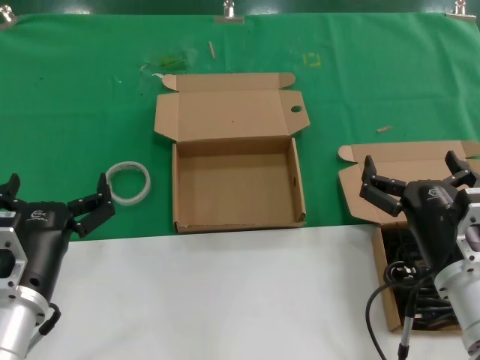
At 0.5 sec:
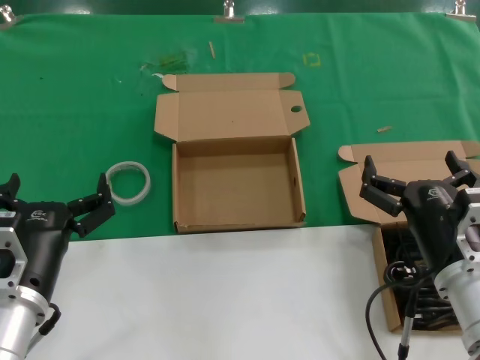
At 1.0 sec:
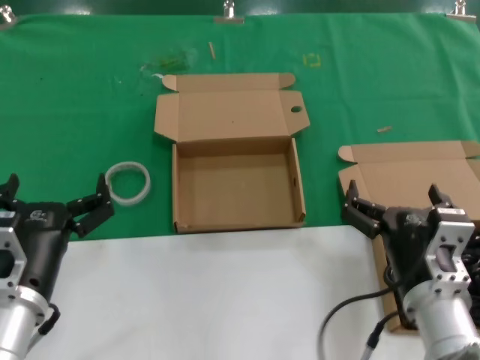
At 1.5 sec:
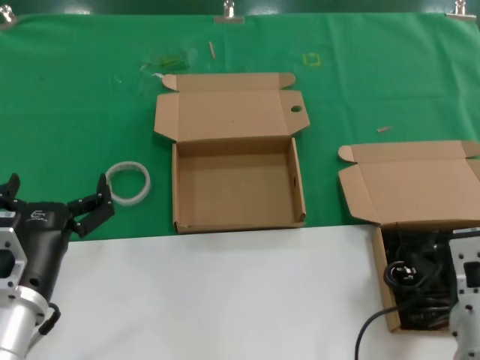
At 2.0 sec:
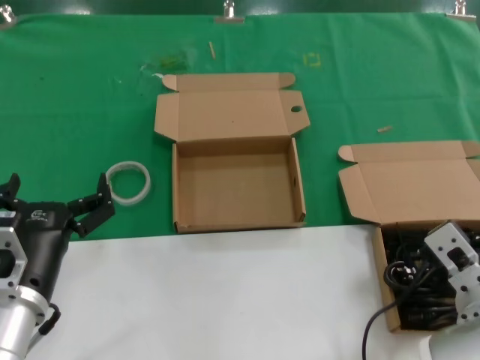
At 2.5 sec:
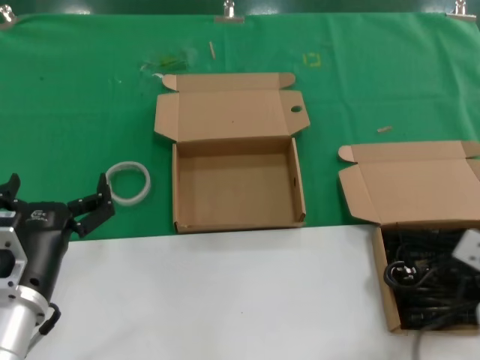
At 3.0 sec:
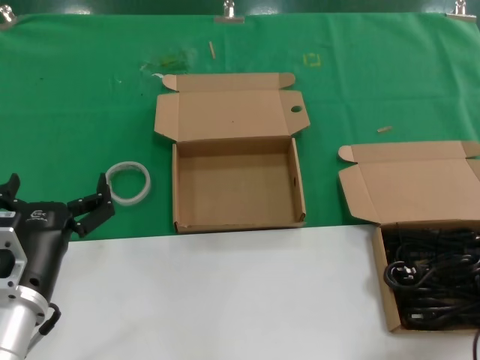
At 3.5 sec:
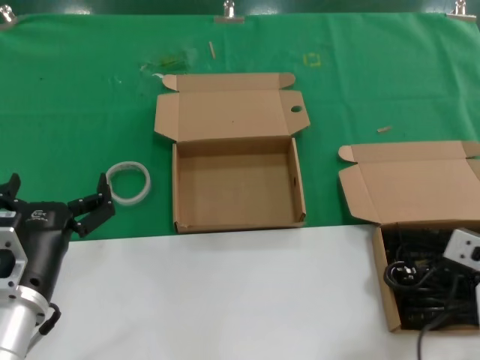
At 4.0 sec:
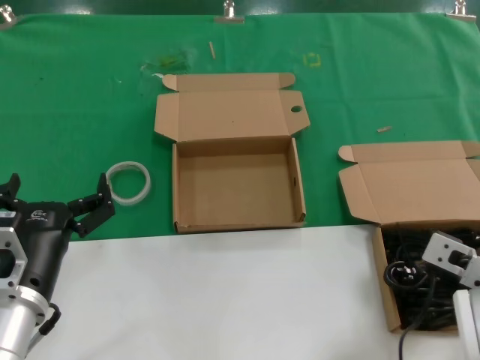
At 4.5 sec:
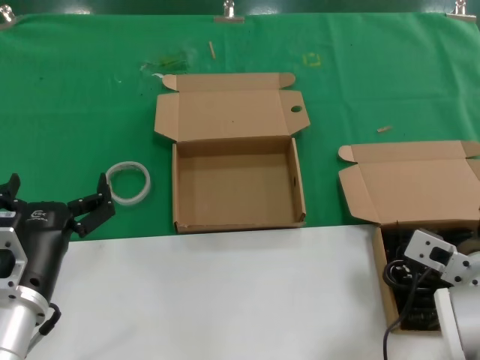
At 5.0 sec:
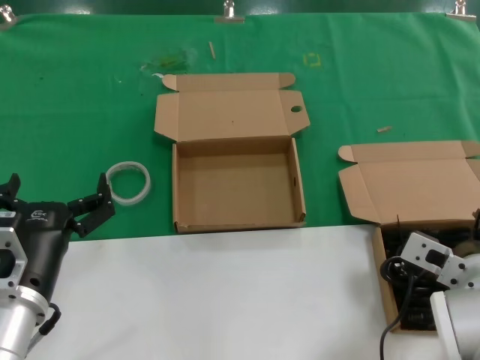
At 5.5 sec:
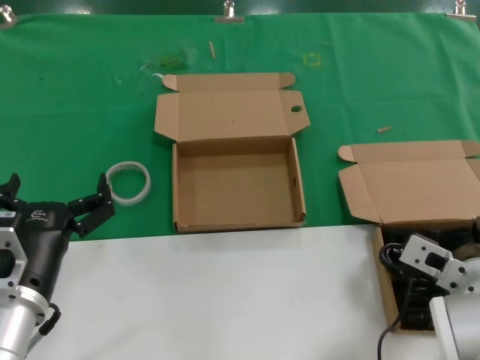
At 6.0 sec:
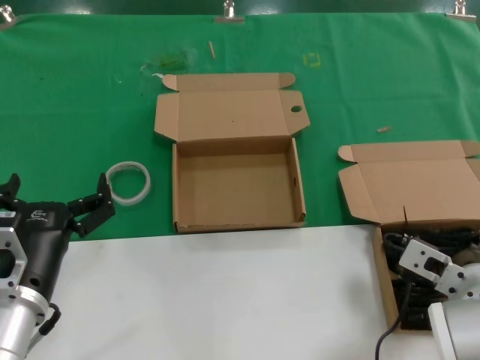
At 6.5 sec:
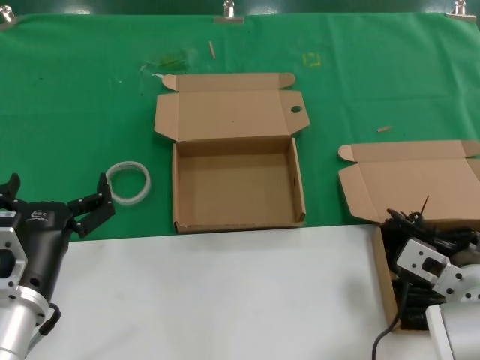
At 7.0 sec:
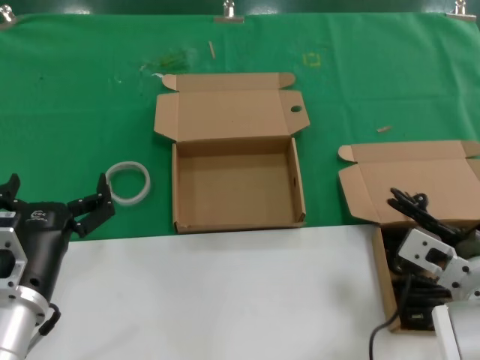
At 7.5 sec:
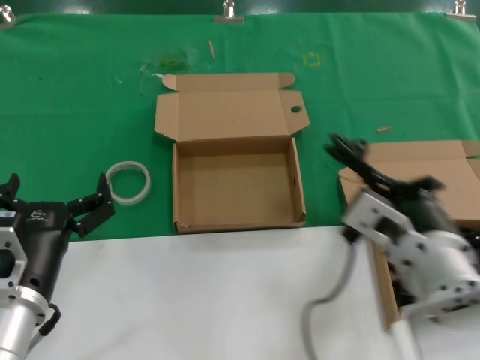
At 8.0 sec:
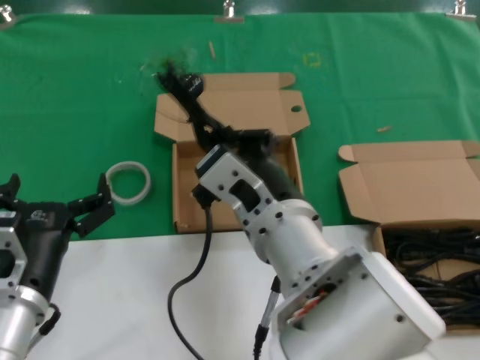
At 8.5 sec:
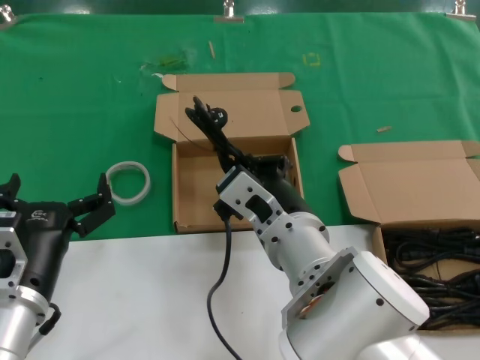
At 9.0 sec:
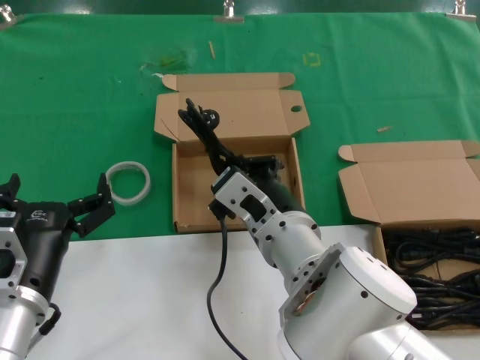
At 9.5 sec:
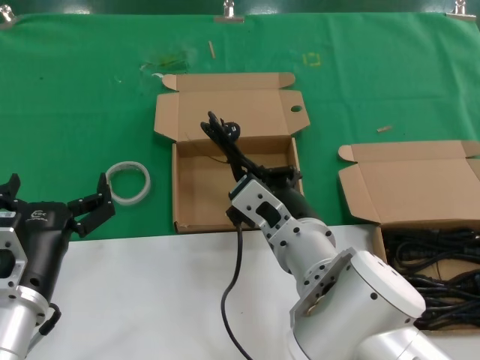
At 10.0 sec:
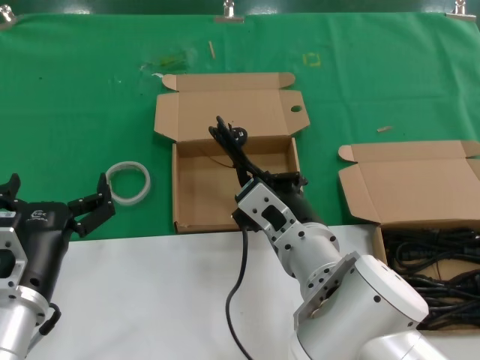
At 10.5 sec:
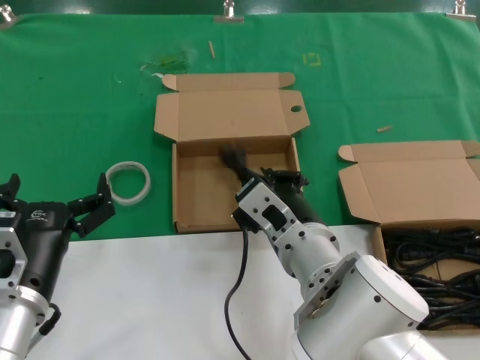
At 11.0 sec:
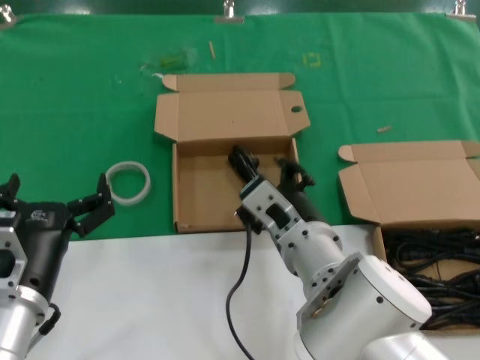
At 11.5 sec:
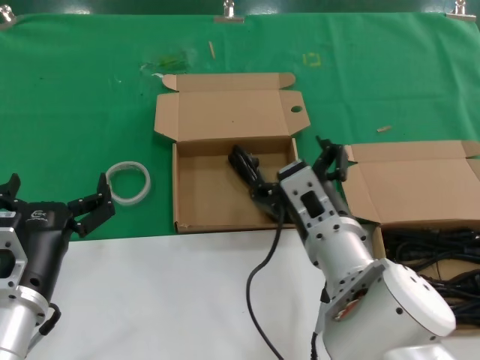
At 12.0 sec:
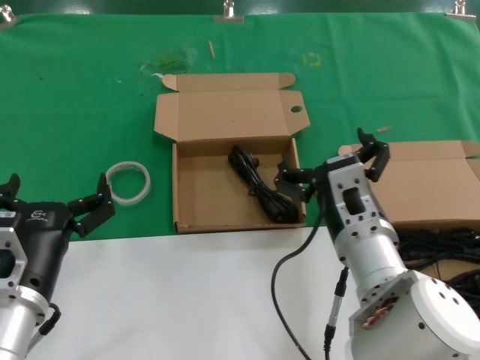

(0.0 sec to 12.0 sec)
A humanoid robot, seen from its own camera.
Task of the whole recording: take the parts from the box containing them and put them into an empty box.
Step, 0.0 sec - 6.0 sec: Grasp the data cable.
Step, 6.5 sec - 11.0 sec: Place the data cable in the another box.
2.0 sec - 4.0 sec: The right hand travels to the right and back again, about 10 cm each way.
4.0 sec - 6.0 sec: The hands move only a little.
6.0 sec - 8.0 sec: The right hand moves to the left and upward, roughly 25 cm.
8.0 sec - 10.0 sec: The right hand travels downward by about 10 cm.
10.0 sec - 12.0 sec: The right hand shifts approximately 5 cm to the right.

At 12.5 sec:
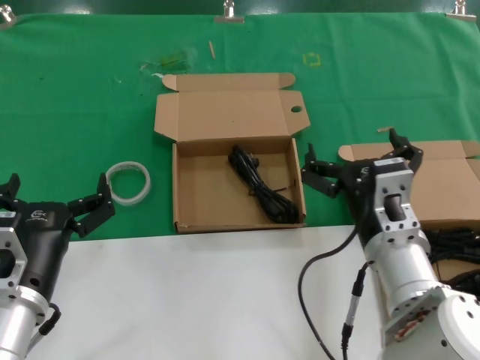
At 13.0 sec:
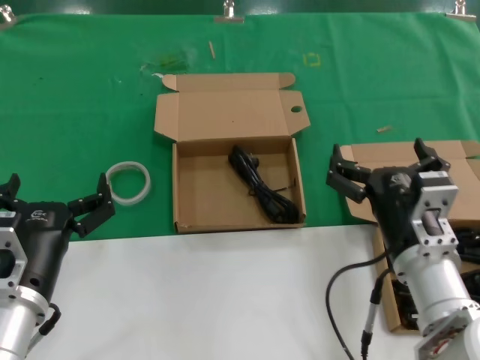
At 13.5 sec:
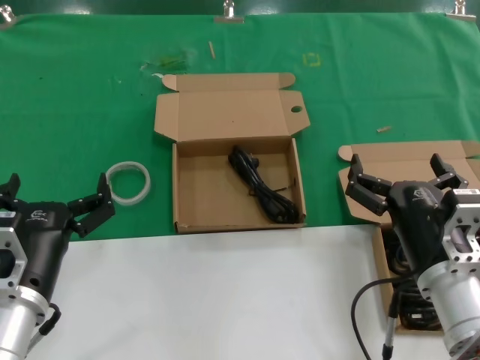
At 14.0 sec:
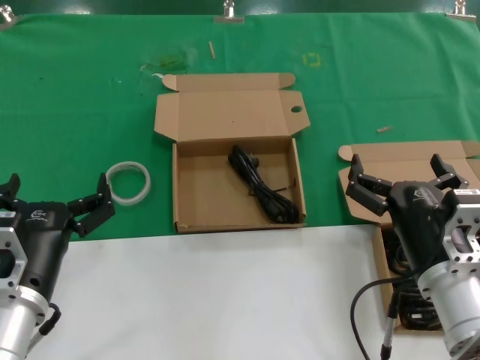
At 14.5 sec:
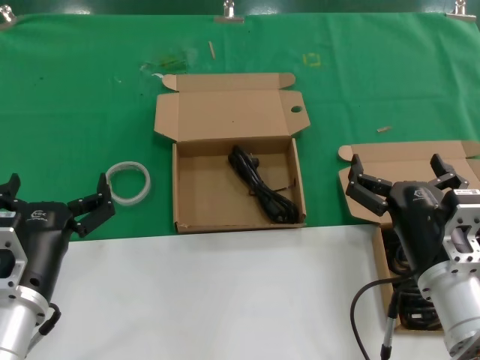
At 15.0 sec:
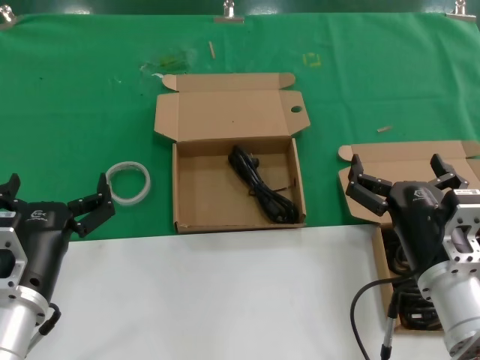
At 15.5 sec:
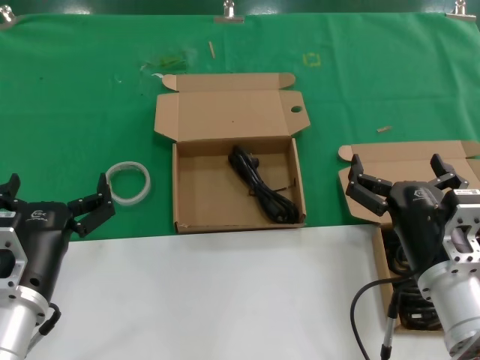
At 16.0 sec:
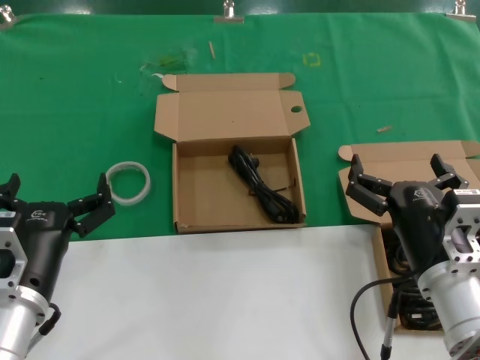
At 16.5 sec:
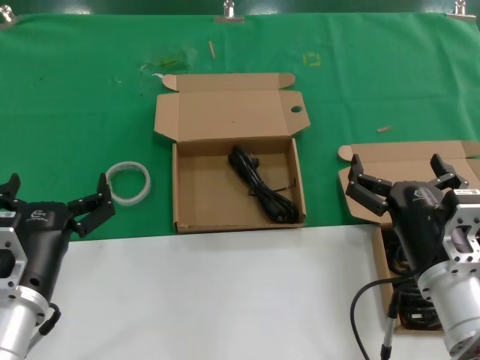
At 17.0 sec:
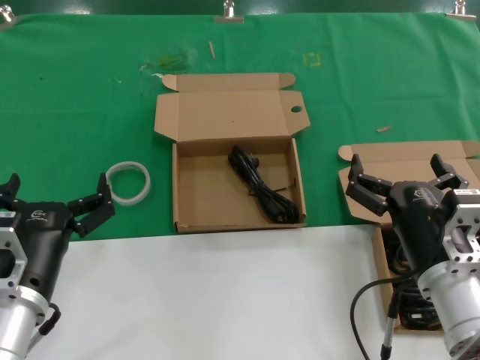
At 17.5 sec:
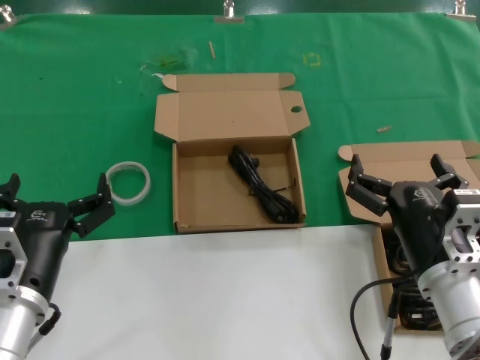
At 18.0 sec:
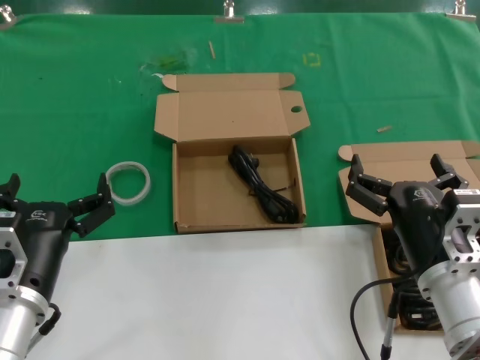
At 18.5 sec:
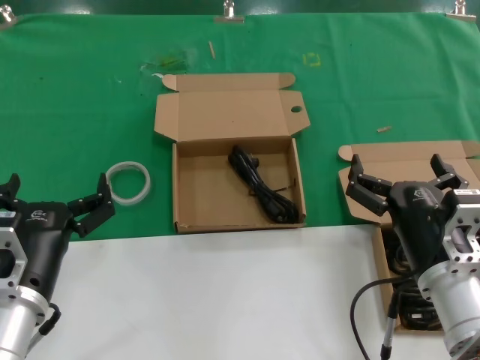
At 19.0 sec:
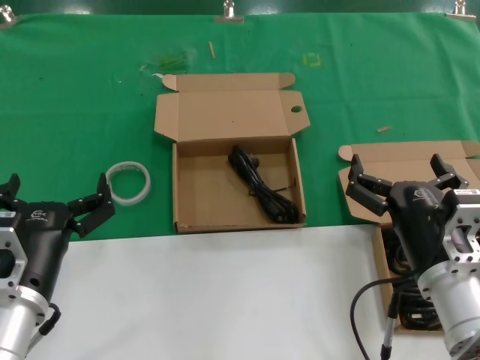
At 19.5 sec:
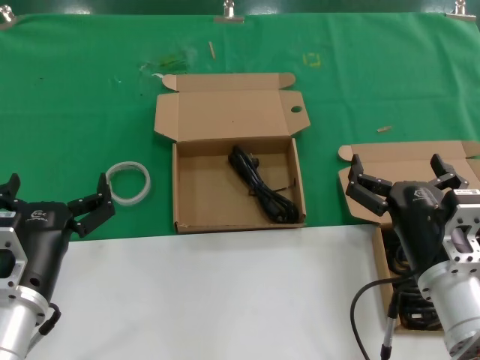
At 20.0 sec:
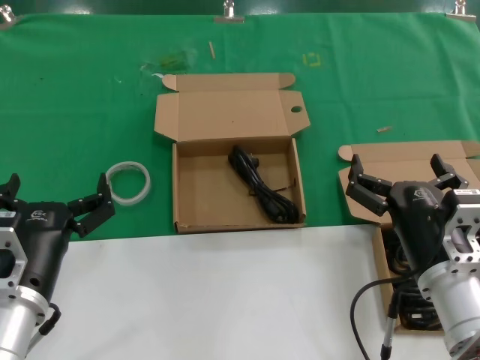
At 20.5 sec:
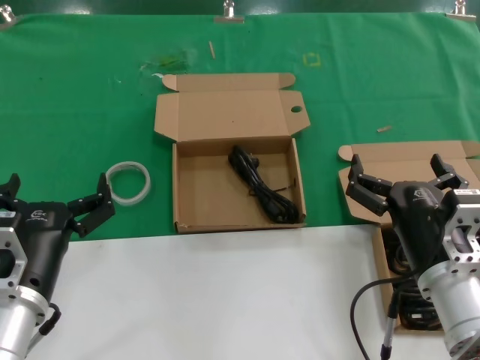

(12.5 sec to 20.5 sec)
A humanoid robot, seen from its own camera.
Task of the whole recording: take the parts from the box containing them and put them into an empty box.
12.5 sec - 14.5 sec: The right hand shifts approximately 5 cm to the right.
14.5 sec - 20.5 sec: The two hands keep their place.
